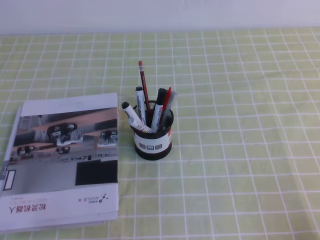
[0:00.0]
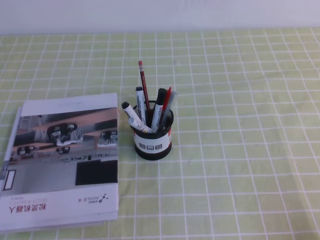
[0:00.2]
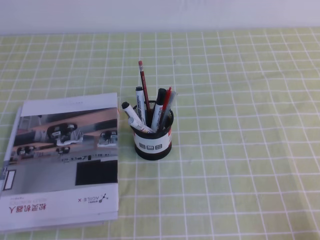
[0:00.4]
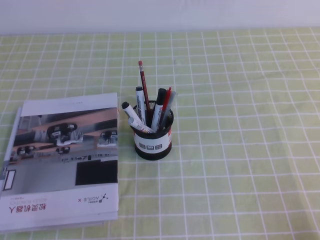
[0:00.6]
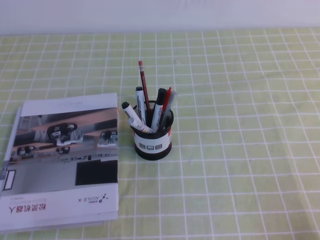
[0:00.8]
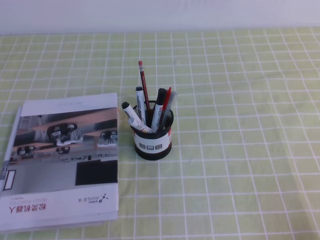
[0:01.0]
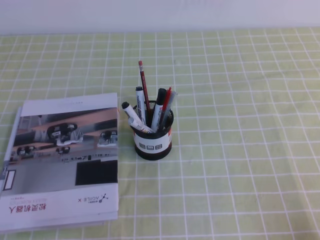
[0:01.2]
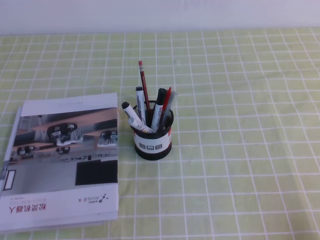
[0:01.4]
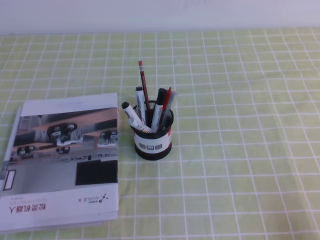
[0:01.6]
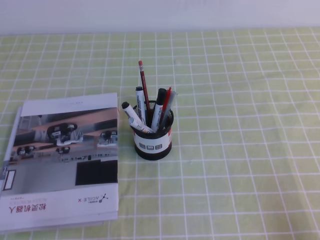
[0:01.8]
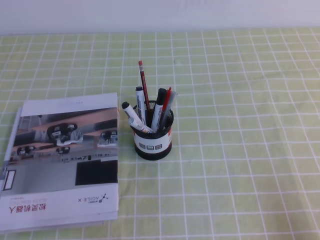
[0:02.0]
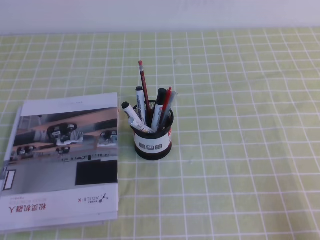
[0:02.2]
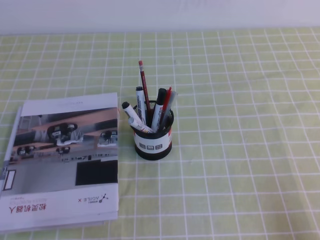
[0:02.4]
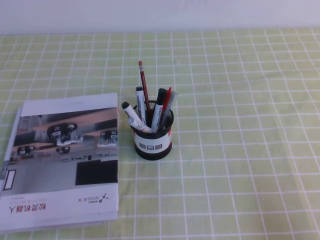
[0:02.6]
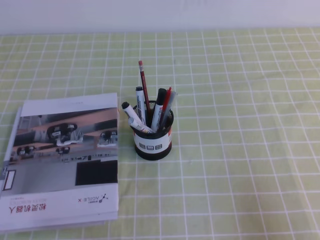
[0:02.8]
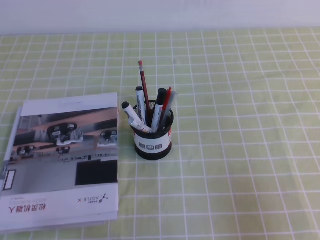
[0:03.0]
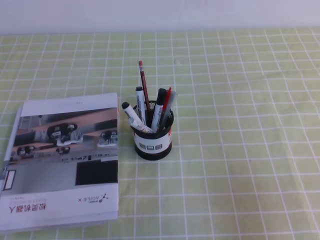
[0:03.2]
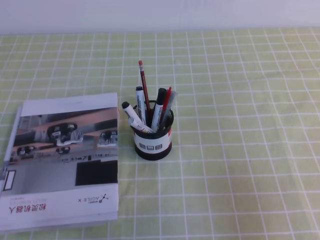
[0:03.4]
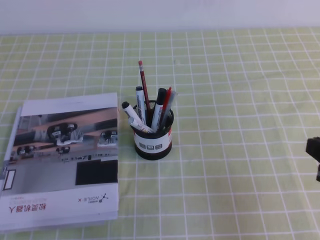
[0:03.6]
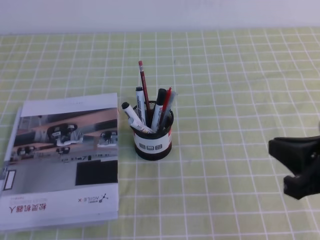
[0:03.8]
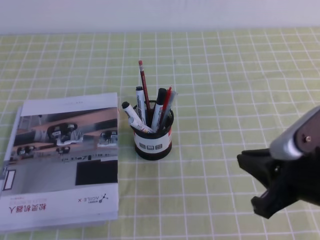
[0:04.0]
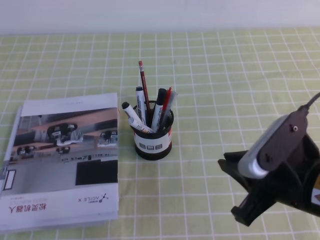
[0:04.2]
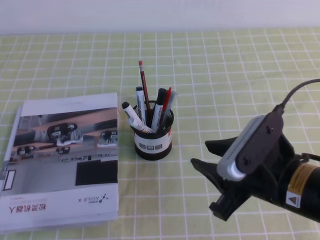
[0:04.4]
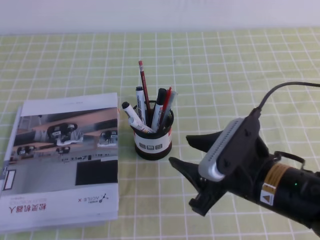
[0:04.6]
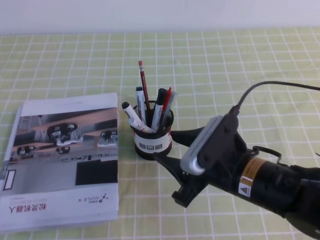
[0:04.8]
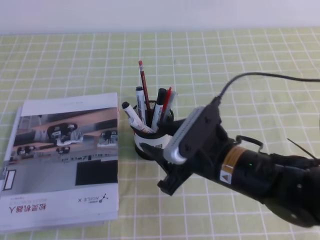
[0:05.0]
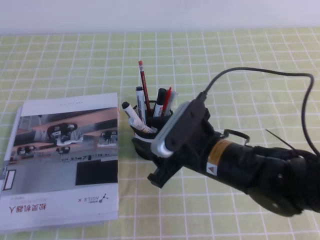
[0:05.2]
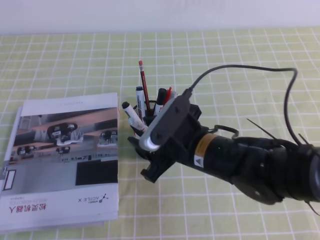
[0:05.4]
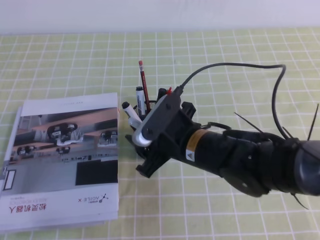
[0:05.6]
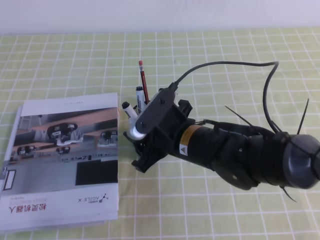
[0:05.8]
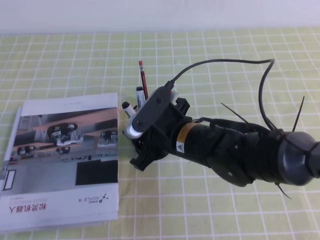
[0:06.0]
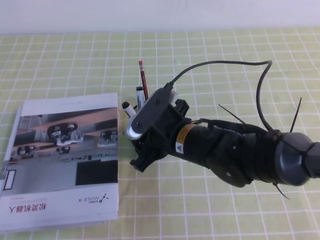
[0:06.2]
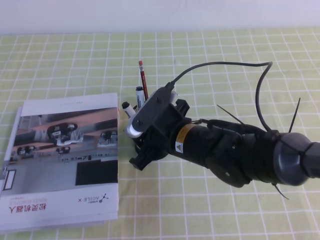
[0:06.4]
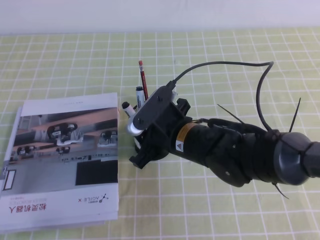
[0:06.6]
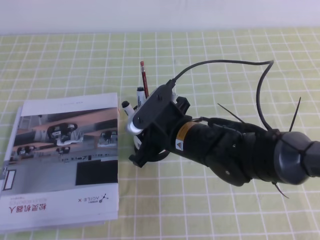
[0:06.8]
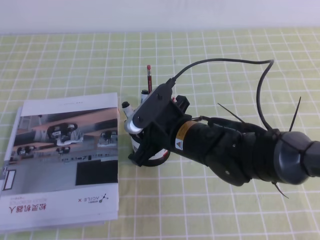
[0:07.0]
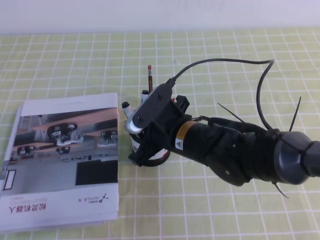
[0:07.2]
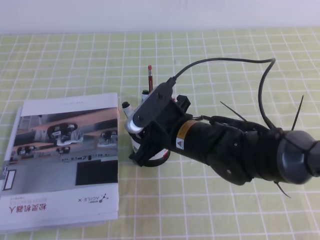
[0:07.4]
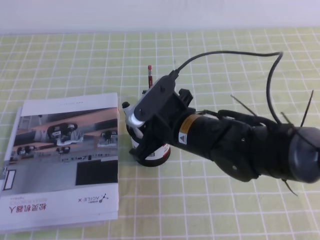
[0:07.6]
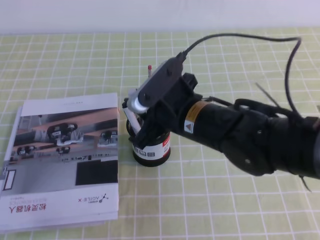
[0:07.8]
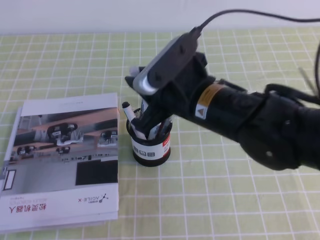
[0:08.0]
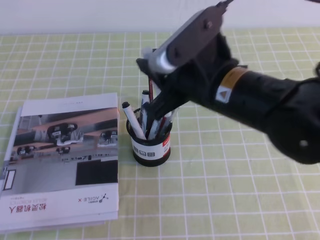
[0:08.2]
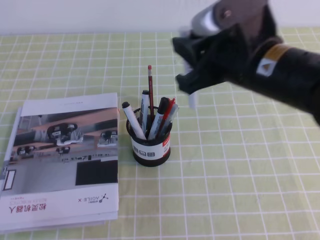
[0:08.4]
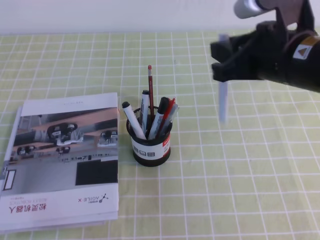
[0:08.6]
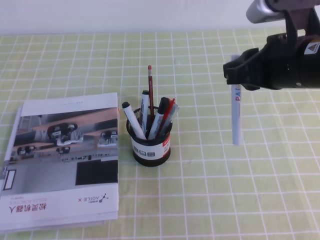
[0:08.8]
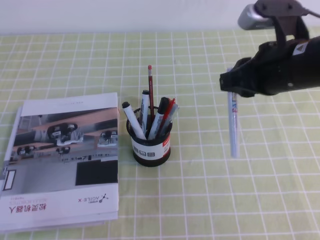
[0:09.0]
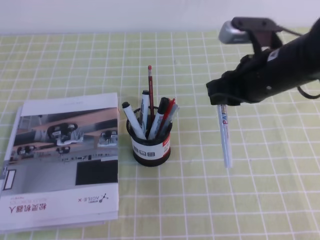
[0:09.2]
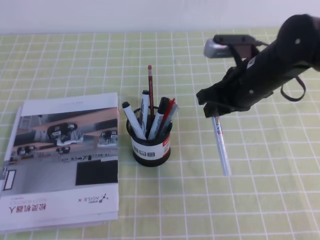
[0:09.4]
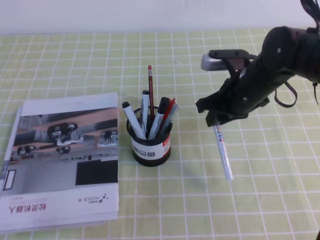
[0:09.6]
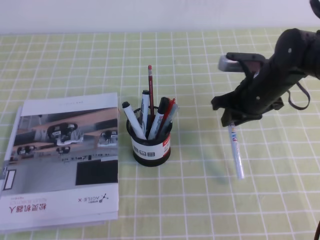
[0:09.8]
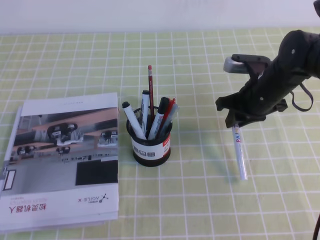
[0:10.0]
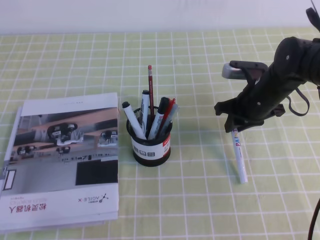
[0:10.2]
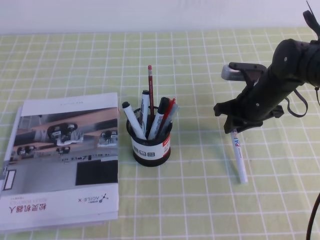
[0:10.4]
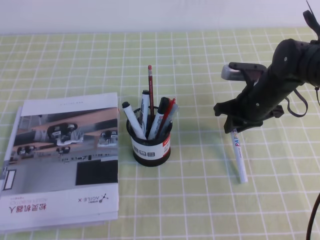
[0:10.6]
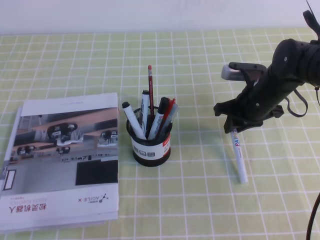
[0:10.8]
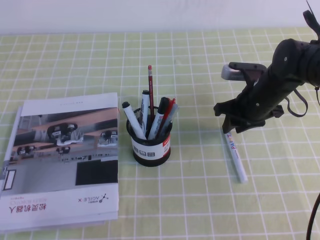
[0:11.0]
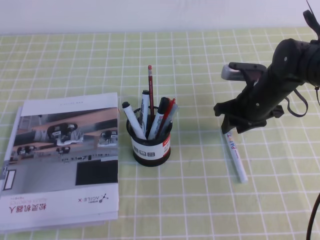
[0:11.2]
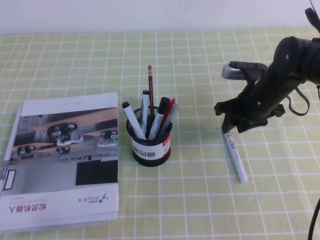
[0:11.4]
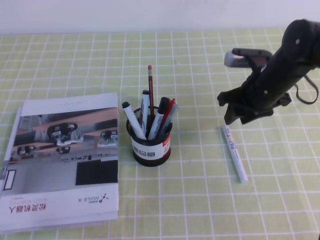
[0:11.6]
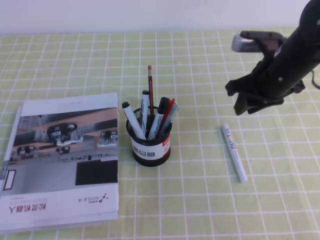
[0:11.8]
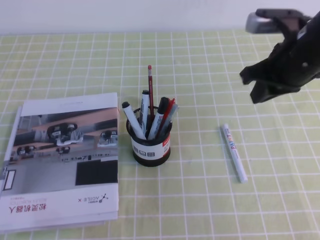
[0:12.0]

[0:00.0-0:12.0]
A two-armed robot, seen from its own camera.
0:01.6 to 0:03.0: The right gripper moves upward, some 10 cm.
0:03.0 to 0:04.4: The right gripper shifts approximately 15 cm to the left and forward, and opens its fingers.
0:04.4 to 0:06.0: The right gripper moves to the left and forward, some 15 cm, and opens.
0:06.0 to 0:07.6: The right gripper closes up.
0:07.6 to 0:09.0: The right gripper is displaced to the right and upward by about 15 cm.
0:09.0 to 0:10.4: The right gripper shifts about 20 cm downward and forward.
0:10.4 to 0:12.0: The right gripper heads upward and backward, covering about 15 cm, and opens and closes again.

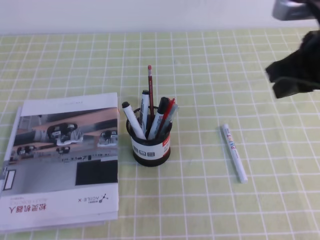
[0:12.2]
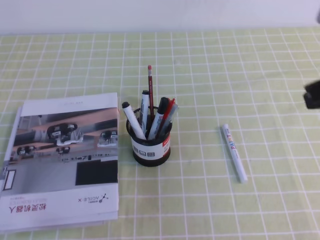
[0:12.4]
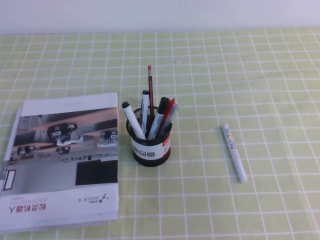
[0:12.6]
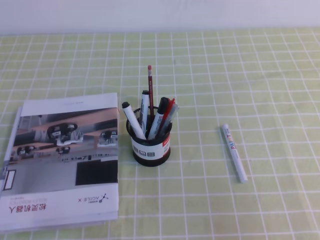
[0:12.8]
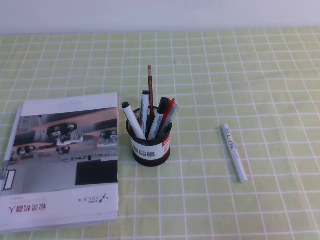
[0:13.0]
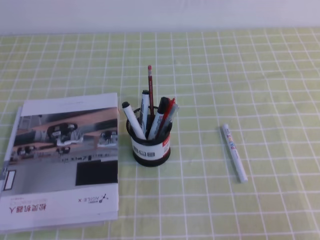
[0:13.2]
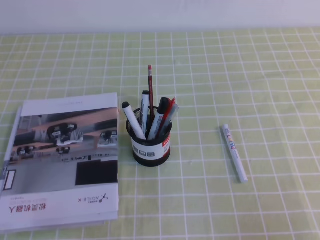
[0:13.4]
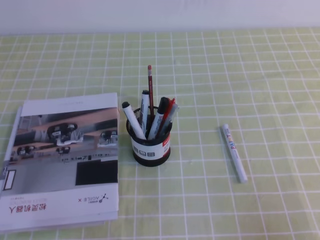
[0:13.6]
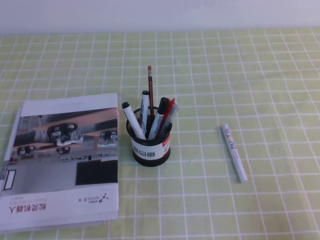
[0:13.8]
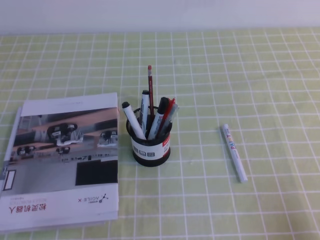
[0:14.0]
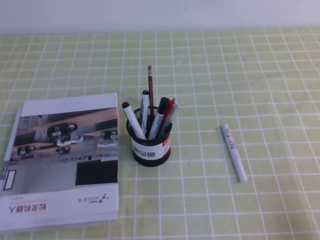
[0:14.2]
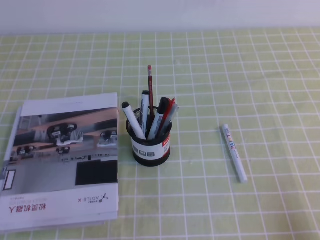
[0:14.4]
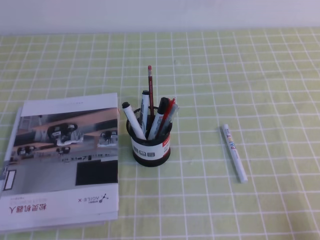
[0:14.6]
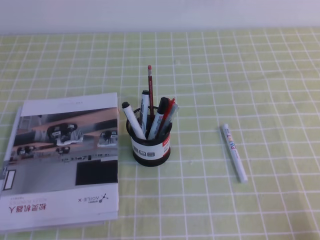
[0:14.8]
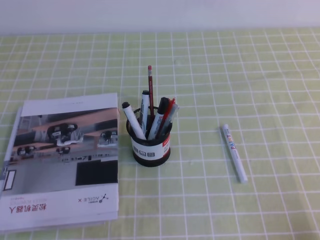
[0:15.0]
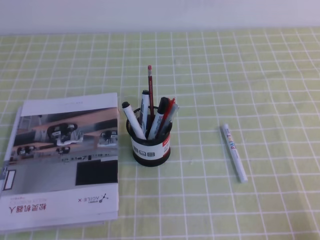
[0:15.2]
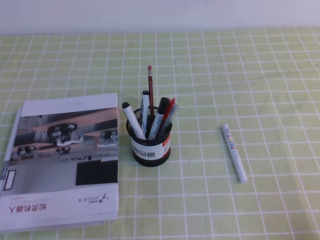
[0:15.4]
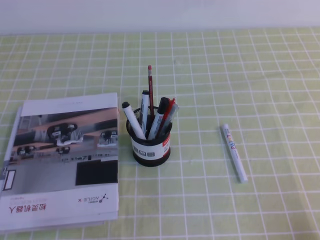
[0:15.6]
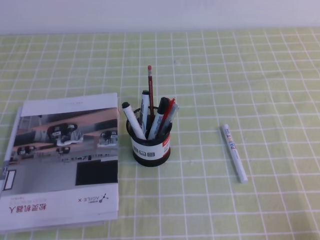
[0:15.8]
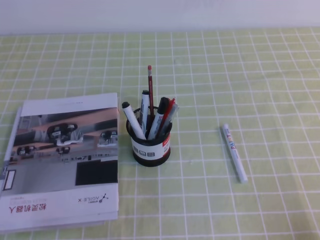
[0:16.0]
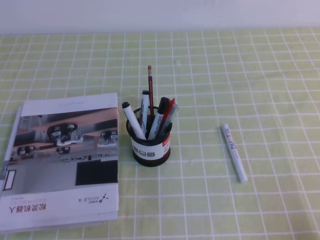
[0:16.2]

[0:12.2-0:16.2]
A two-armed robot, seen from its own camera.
Step, 0:12.2 to 0:16.2: Pick up the pen from the pen holder.
0:12.2 to 0:13.6: The right gripper moves backward and downward, some 25 cm.
0:14.8 to 0:16.2: Both grippers stay about where they are.

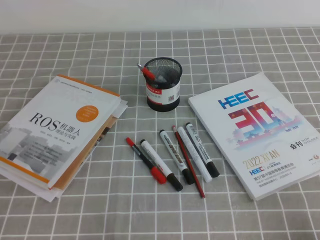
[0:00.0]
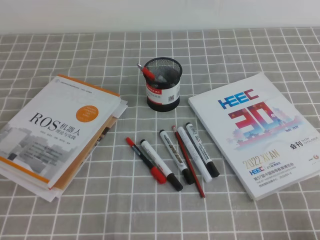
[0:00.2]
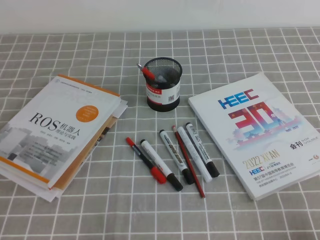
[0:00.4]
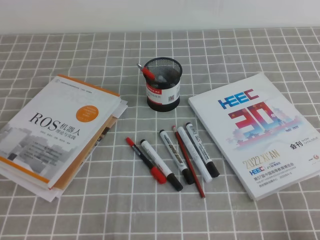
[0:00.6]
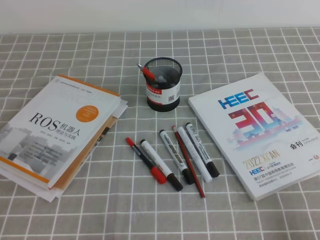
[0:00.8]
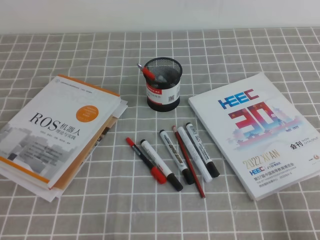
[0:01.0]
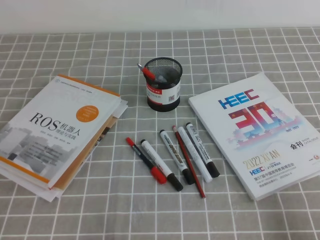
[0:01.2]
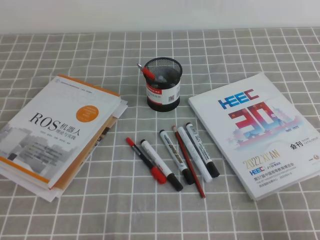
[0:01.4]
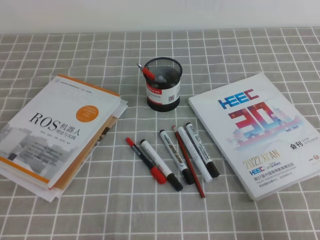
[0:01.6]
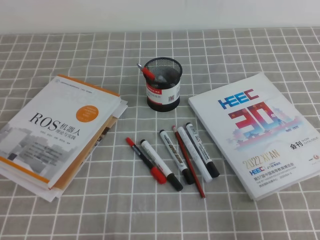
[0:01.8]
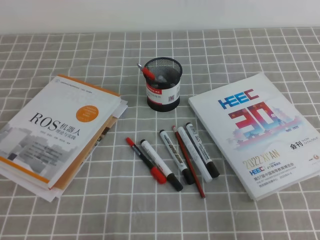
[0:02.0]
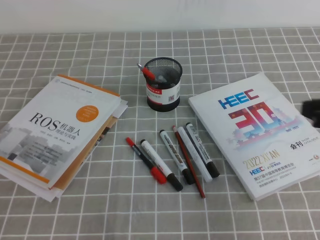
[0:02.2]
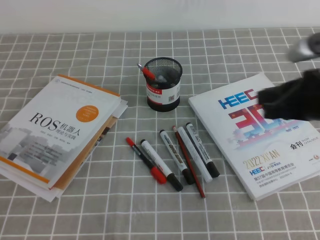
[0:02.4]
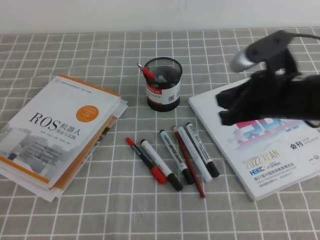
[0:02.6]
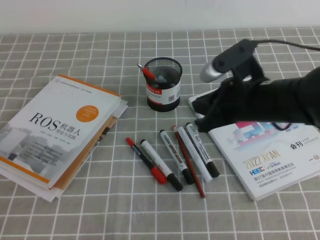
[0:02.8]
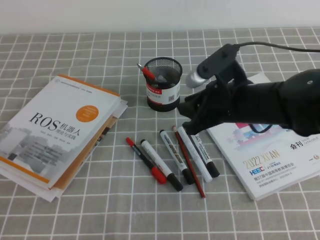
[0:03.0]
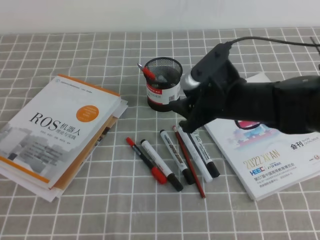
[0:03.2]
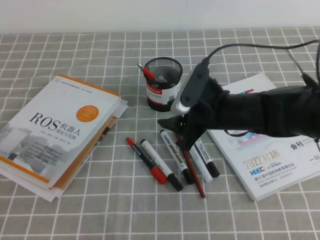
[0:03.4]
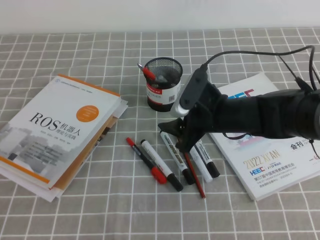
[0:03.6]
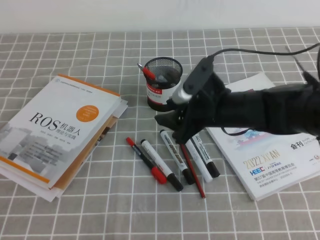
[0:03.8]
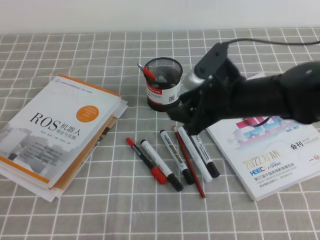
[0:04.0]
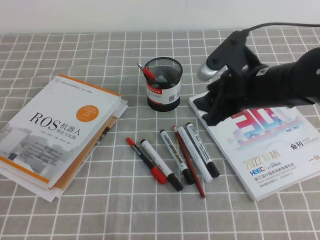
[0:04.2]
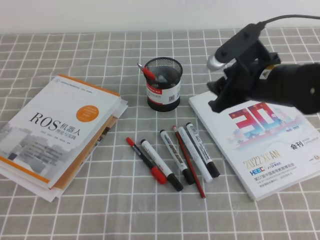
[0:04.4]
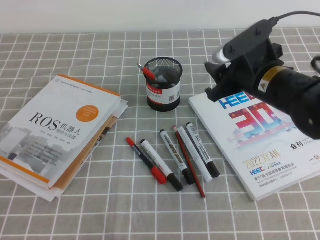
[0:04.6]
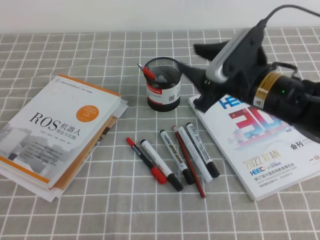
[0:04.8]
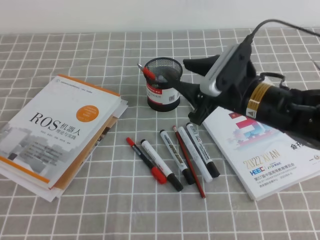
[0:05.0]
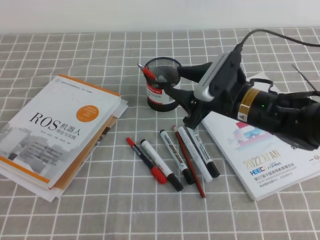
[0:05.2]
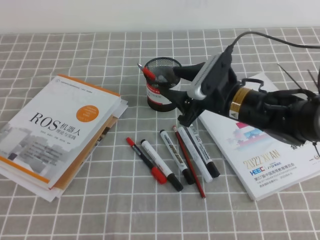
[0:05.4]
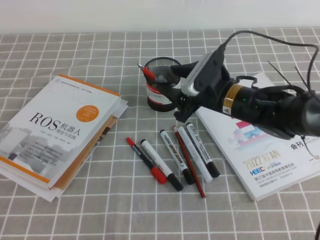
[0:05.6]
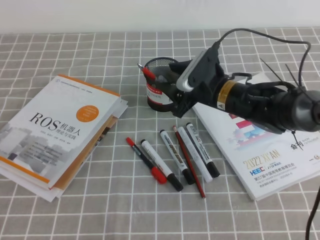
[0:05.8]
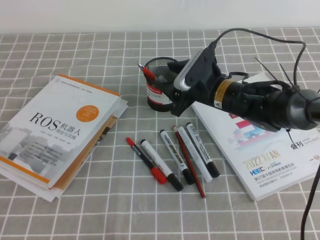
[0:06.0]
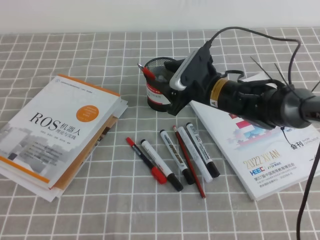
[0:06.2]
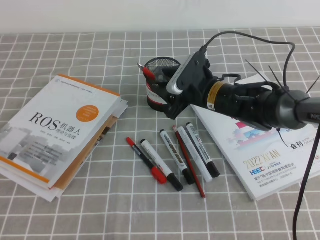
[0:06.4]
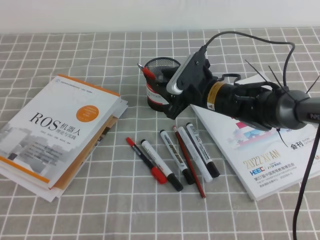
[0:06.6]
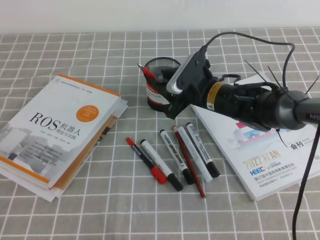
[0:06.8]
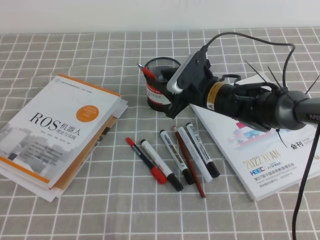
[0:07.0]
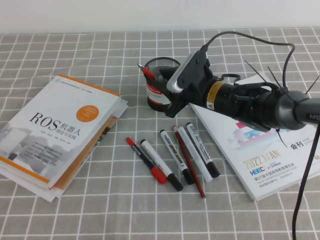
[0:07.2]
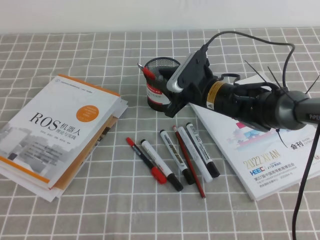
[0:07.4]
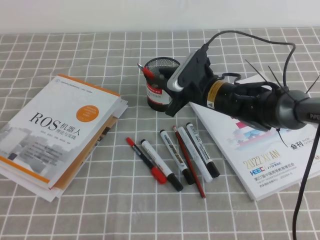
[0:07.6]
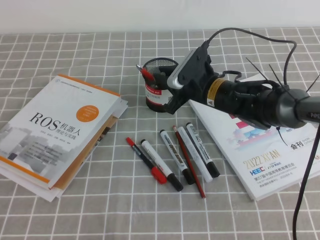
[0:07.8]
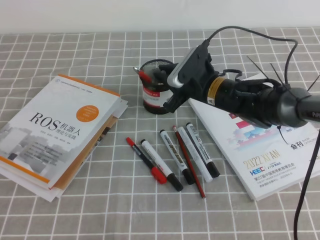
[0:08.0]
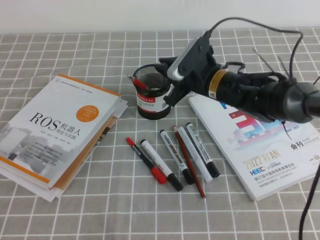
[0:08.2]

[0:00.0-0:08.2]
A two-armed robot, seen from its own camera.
0:00.0 to 0:01.6: The right gripper goes roughly 10 cm upward.
0:01.6 to 0:03.2: The right gripper travels forward and to the left by about 30 cm, and opens up.
0:05.0 to 0:06.6: The right gripper moves forward and downward, about 10 cm.
0:06.6 to 0:08.2: The right gripper closes its fingers.
